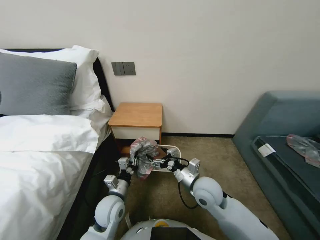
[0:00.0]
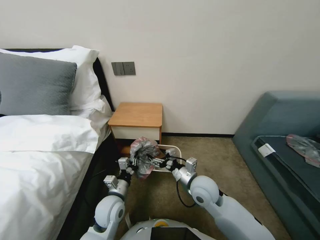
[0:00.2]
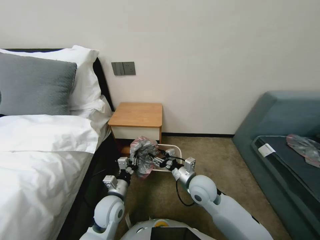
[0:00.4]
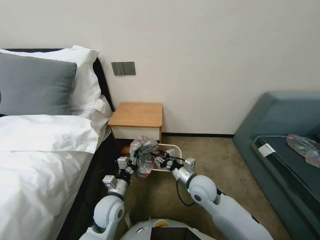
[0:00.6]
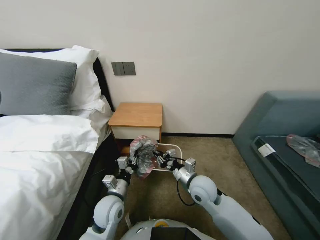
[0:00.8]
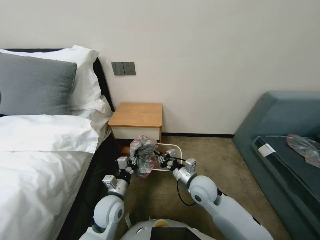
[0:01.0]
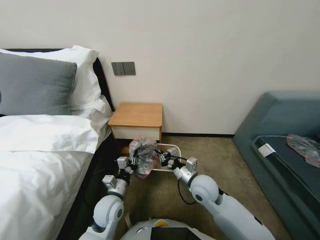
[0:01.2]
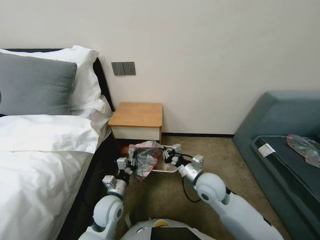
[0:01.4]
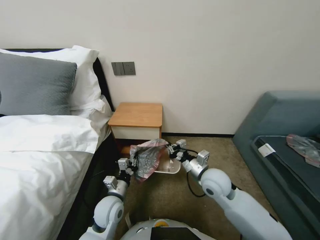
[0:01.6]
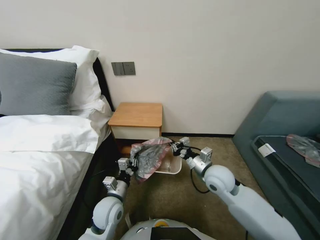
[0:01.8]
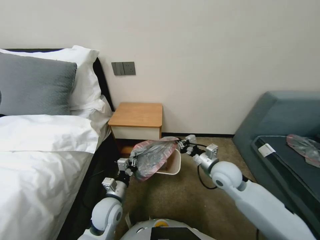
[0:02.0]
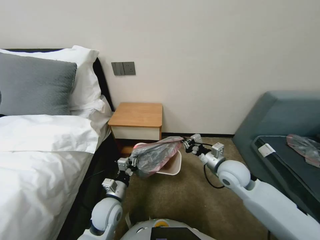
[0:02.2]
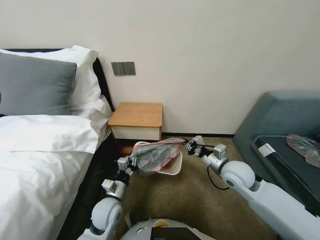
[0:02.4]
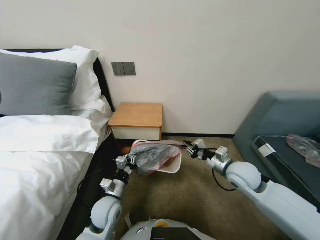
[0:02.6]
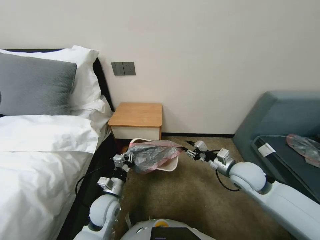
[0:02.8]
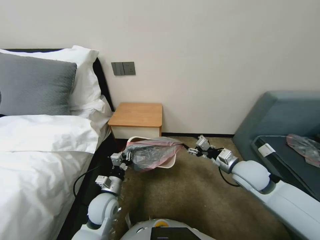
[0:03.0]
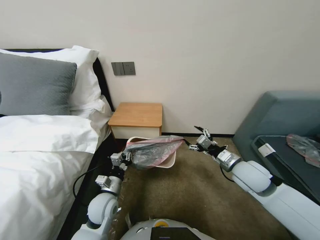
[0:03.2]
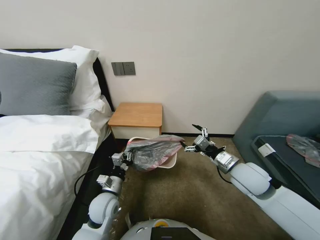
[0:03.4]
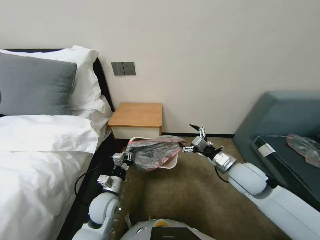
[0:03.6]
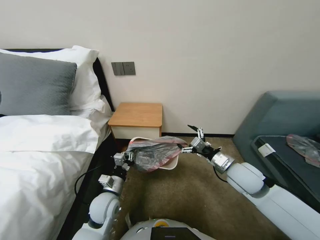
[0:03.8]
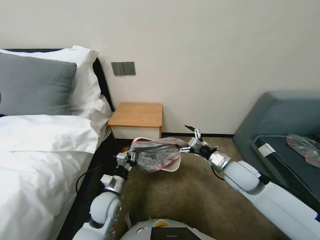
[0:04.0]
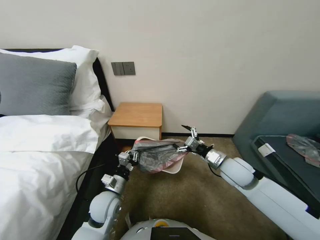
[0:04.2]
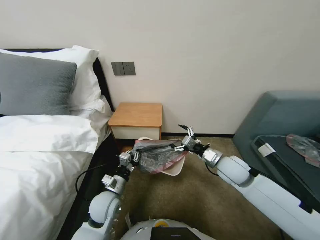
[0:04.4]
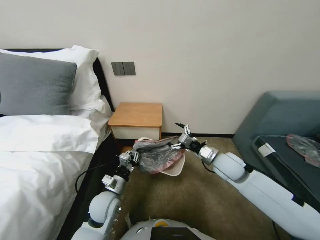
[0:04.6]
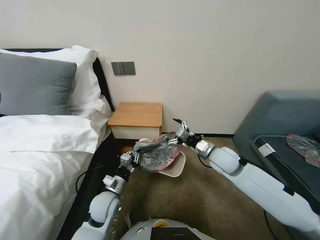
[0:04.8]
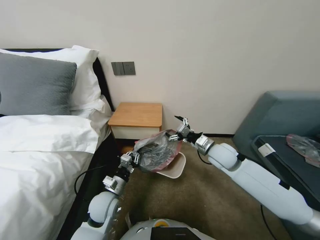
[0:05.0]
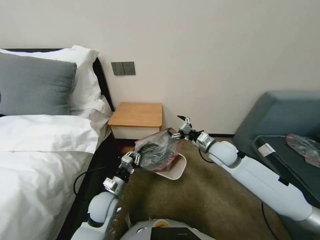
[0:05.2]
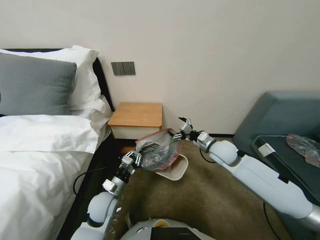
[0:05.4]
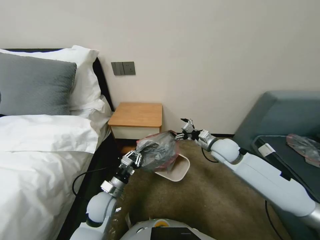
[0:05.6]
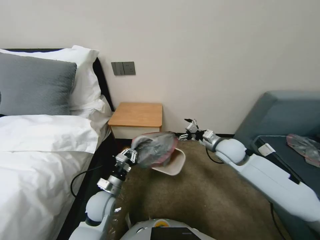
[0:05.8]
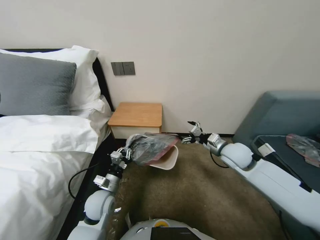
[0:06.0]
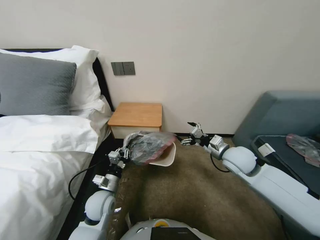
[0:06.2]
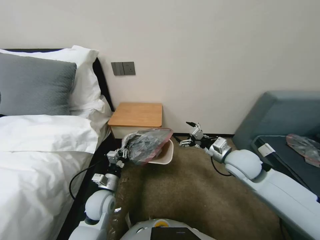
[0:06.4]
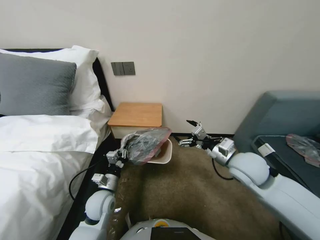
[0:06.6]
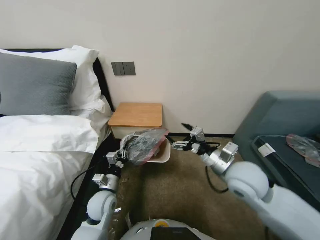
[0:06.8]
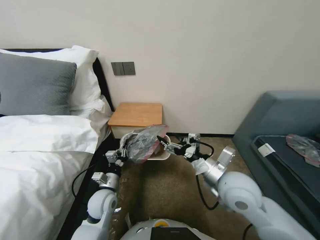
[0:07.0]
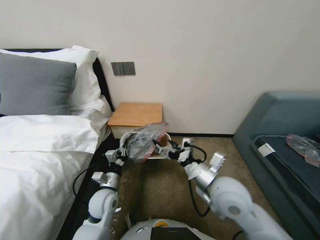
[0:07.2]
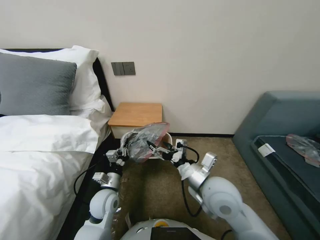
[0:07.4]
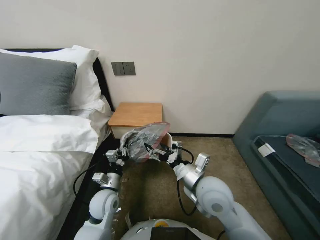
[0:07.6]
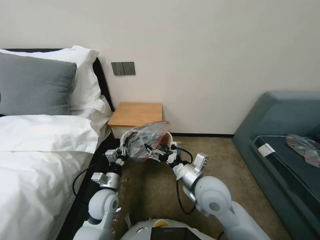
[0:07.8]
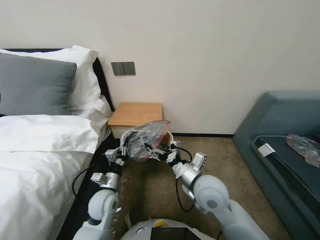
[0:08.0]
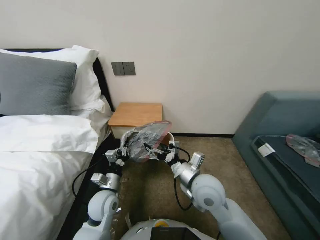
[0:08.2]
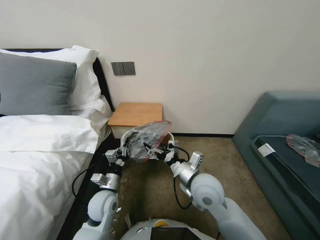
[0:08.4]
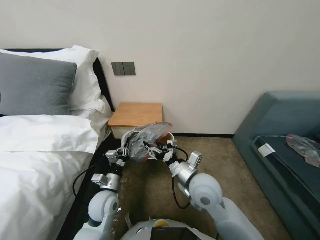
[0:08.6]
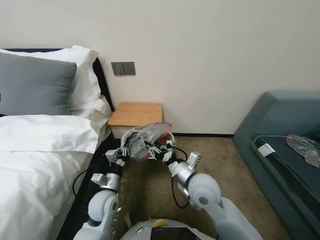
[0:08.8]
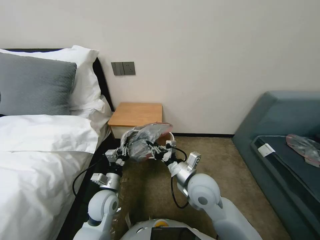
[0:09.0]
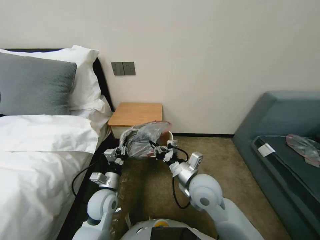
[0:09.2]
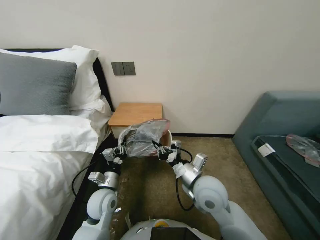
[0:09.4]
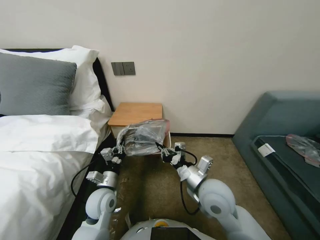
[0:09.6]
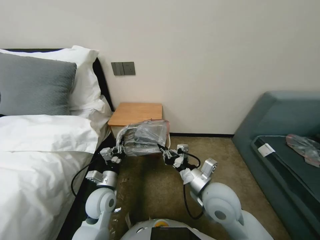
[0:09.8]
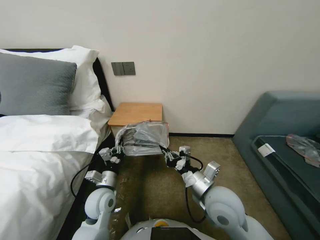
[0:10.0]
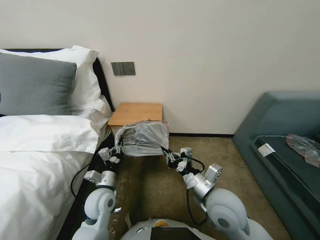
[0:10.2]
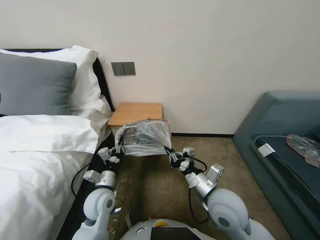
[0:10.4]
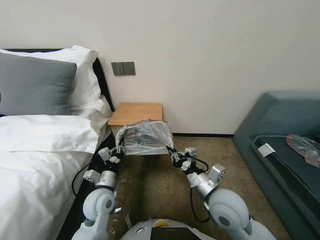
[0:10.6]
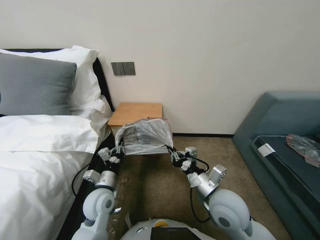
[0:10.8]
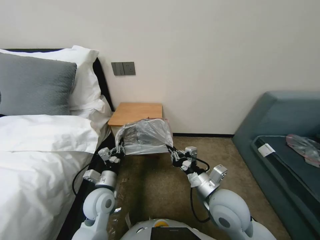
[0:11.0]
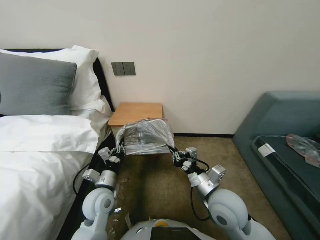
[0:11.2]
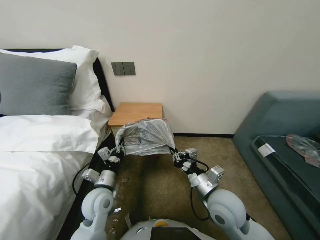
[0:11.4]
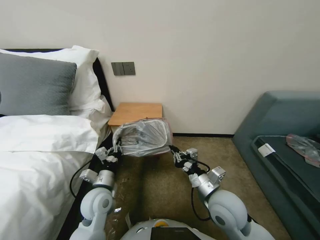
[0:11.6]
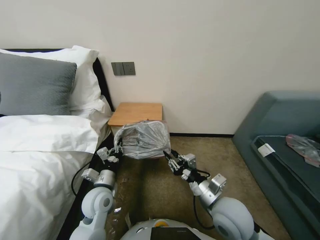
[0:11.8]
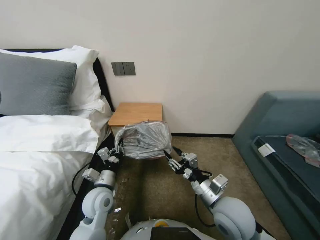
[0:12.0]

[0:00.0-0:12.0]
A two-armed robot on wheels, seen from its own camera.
Task of the whole recording: Pick up the garbage bag from the table and place it over the trash can.
0:00.0 to 0:01.6: The right gripper closes its fingers.
0:01.6 to 0:03.0: The right gripper travels to the right by roughly 10 cm, and opens up.
0:03.0 to 0:04.4: The right gripper opens up.
0:04.4 to 0:06.0: The right gripper goes roughly 5 cm forward.
0:06.0 to 0:07.6: The right gripper heads backward and to the left, covering about 20 cm.
0:07.6 to 0:09.0: The right gripper closes.
0:09.0 to 0:10.4: The right gripper changes place by some 5 cm, and closes up.
0:10.4 to 0:12.0: The right gripper opens.

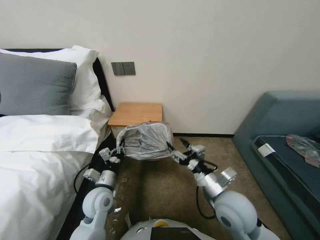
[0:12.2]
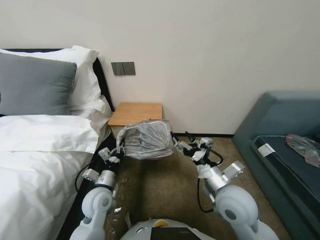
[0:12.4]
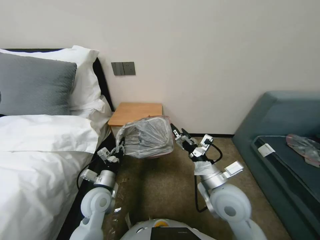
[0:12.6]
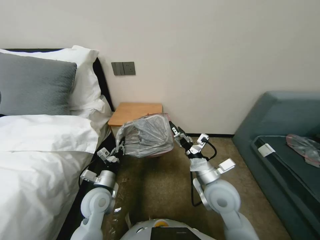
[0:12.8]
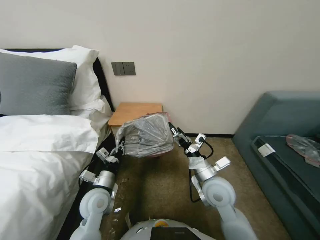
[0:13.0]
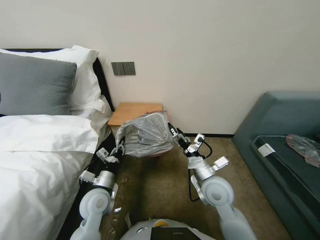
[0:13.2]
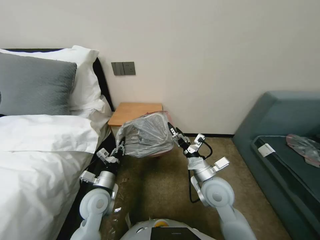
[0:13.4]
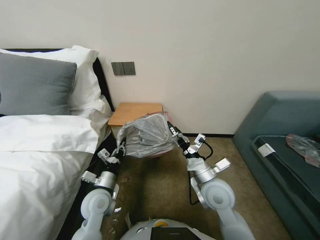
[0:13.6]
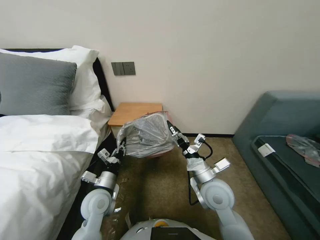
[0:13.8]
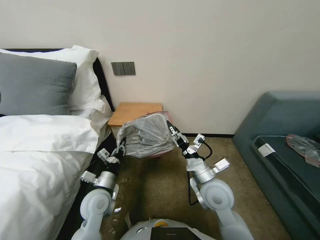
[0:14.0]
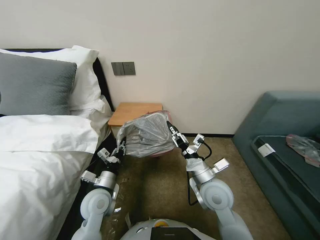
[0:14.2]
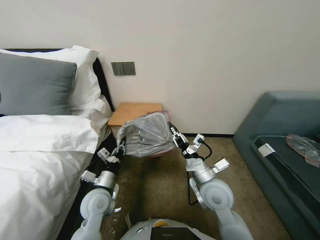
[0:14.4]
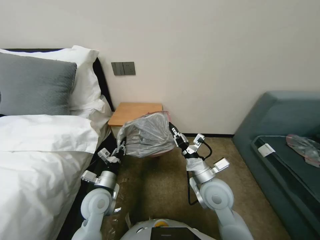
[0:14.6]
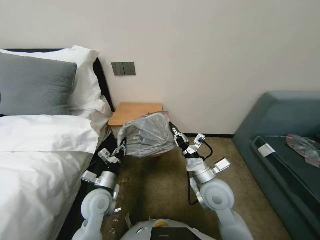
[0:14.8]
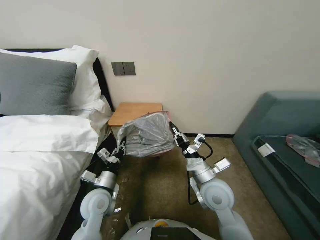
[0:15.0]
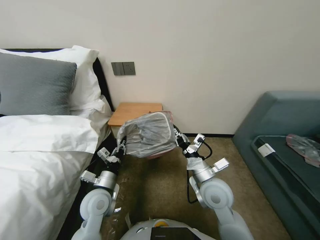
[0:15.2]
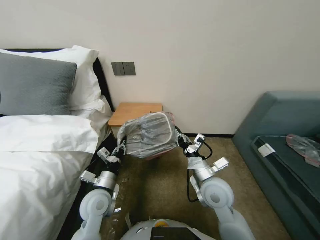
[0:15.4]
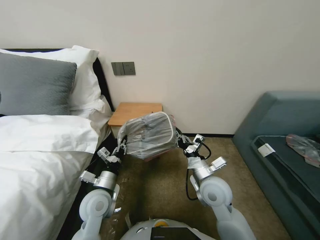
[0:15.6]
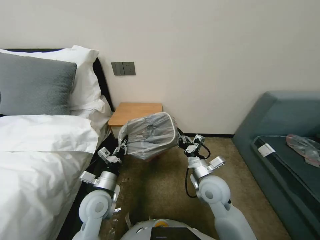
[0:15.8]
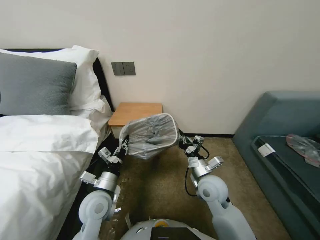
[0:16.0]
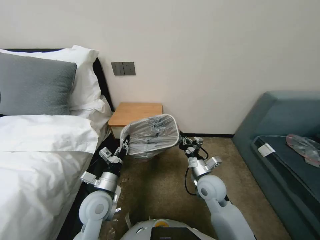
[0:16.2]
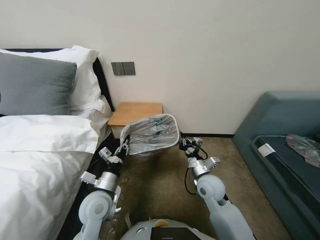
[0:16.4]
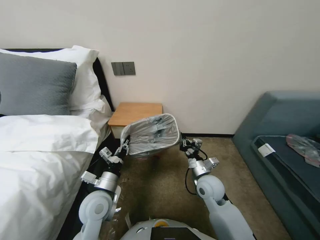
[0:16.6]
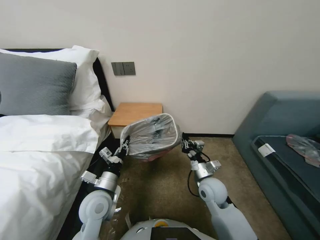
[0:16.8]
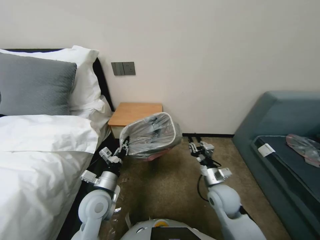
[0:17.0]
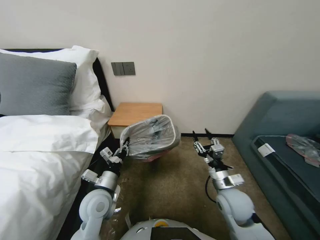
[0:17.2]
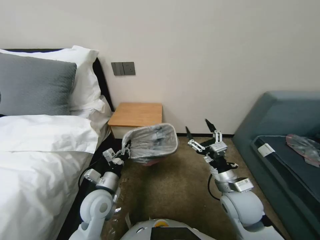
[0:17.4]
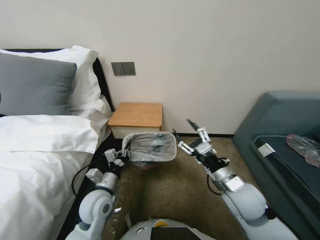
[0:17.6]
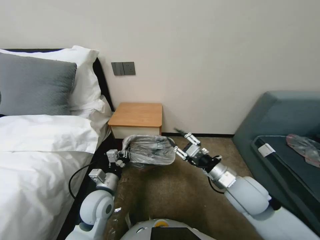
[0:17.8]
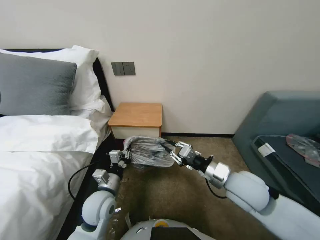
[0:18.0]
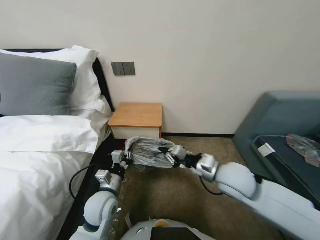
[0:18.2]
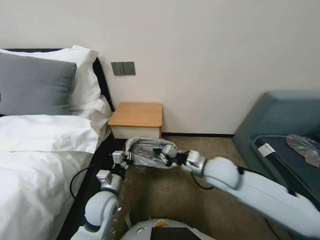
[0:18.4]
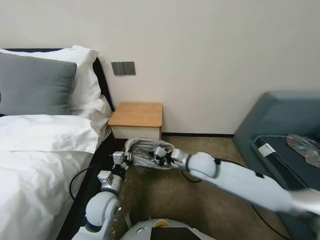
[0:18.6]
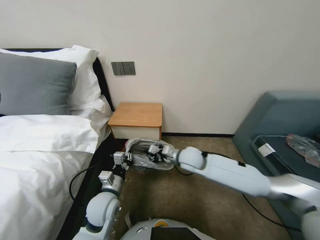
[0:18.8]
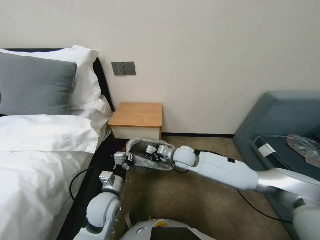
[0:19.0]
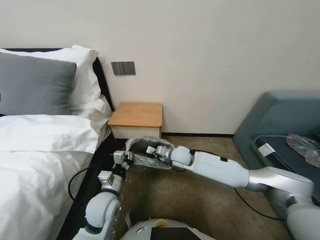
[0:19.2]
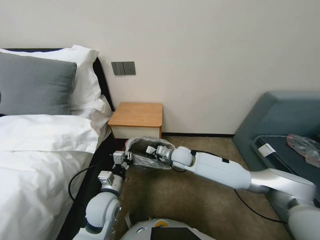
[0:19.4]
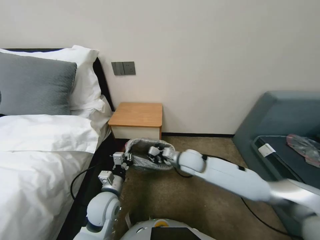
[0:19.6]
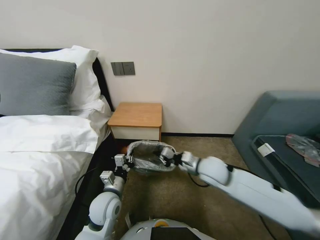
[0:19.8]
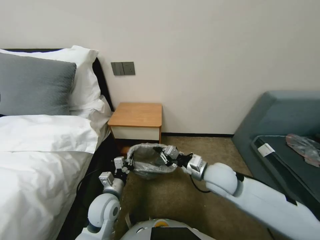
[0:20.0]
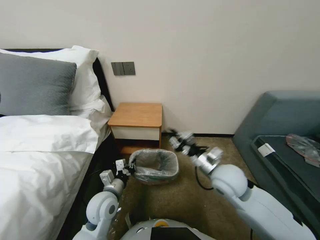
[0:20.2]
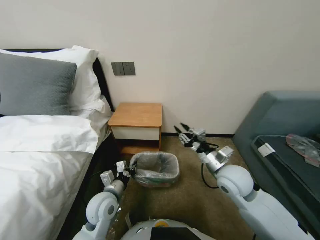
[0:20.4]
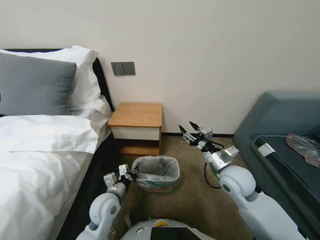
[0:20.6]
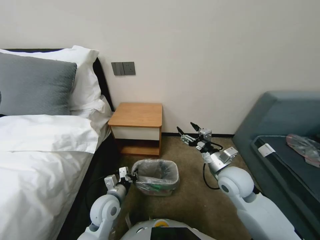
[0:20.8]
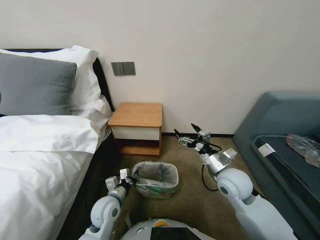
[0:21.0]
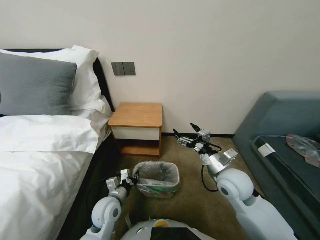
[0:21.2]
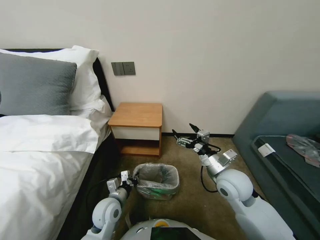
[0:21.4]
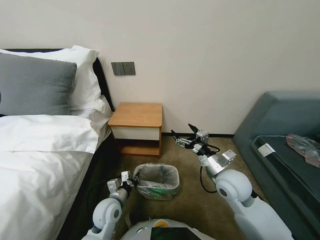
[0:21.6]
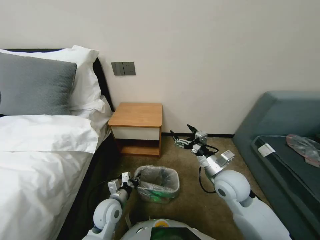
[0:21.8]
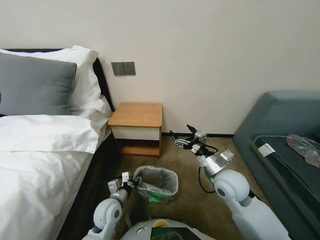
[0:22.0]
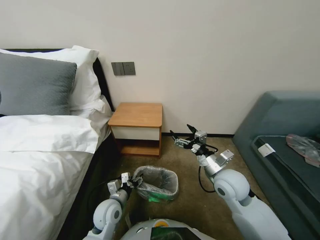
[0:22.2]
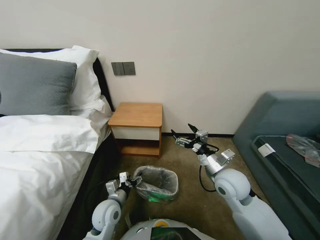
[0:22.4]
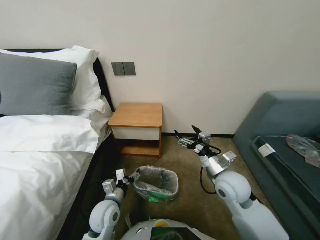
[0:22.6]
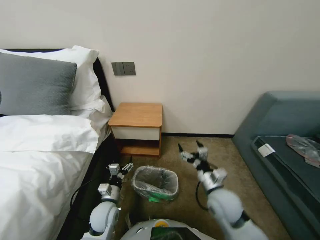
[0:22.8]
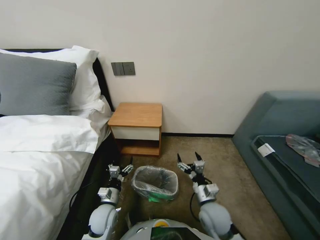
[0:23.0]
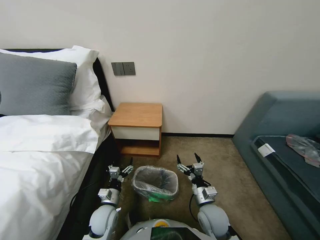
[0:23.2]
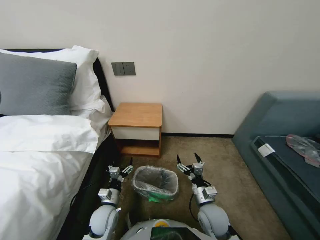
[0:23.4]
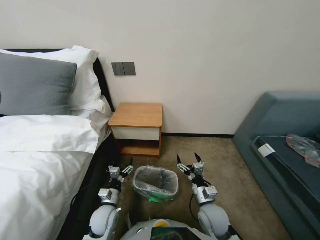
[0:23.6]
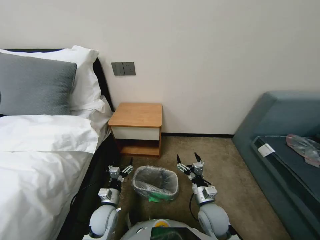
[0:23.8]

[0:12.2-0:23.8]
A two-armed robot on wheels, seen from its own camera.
Task of the whole recording: Pick up the garbage bag from the table and place it over the trash can.
0:12.2 to 0:13.6: The right gripper shifts approximately 5 cm forward.
0:13.6 to 0:15.0: The right gripper closes up.
0:15.0 to 0:16.6: The right gripper goes about 5 cm downward.
0:16.6 to 0:18.0: The right gripper moves upward and backward, some 10 cm, and opens and closes again.
0:18.0 to 0:19.4: The right gripper goes some 25 cm forward, to the left and downward.
0:19.4 to 0:21.0: The right gripper shifts about 20 cm to the right, backward and upward, and opens its fingers; the left gripper is displaced downward by approximately 5 cm.
0:21.0 to 0:22.4: The left gripper opens its fingers.
0:22.4 to 0:23.8: The right gripper travels downward and backward by about 15 cm.
